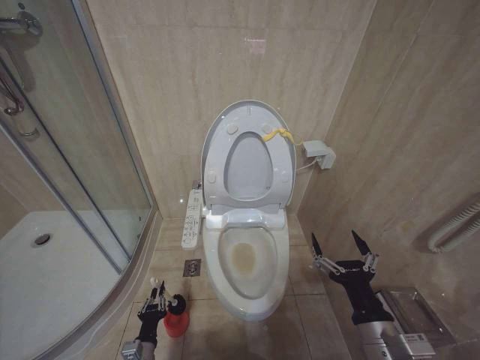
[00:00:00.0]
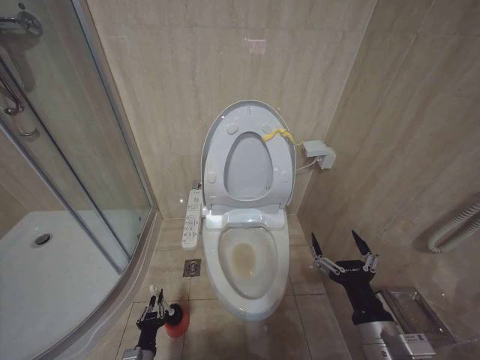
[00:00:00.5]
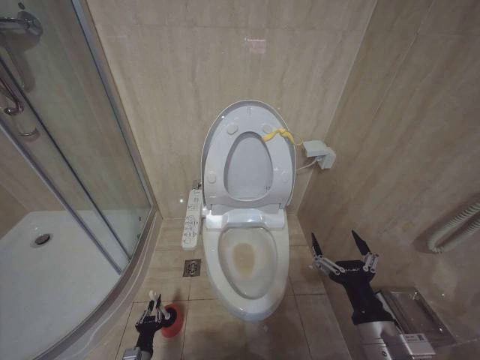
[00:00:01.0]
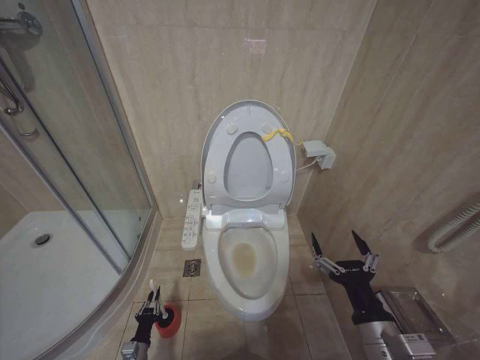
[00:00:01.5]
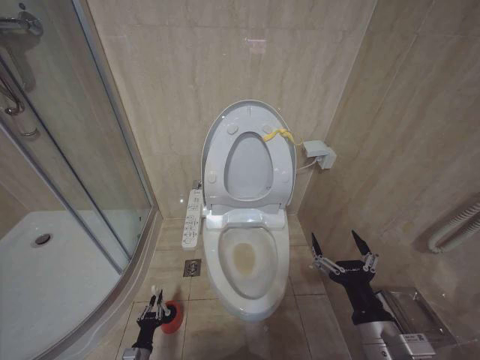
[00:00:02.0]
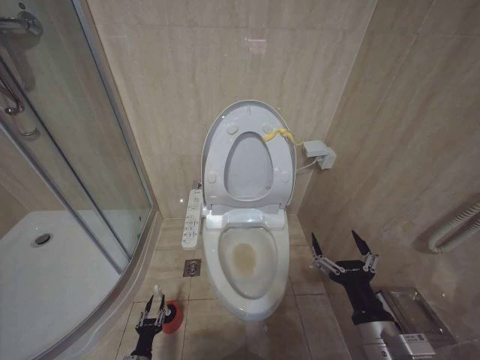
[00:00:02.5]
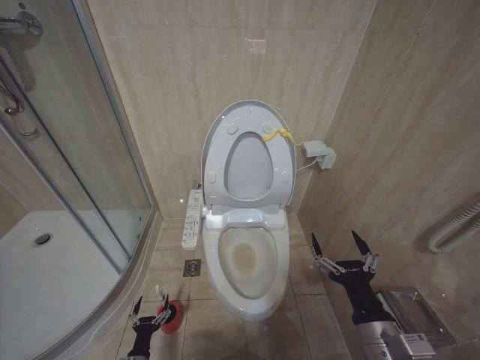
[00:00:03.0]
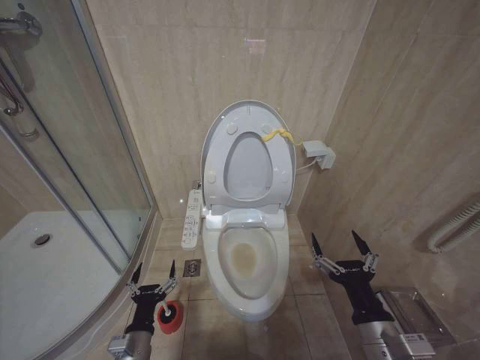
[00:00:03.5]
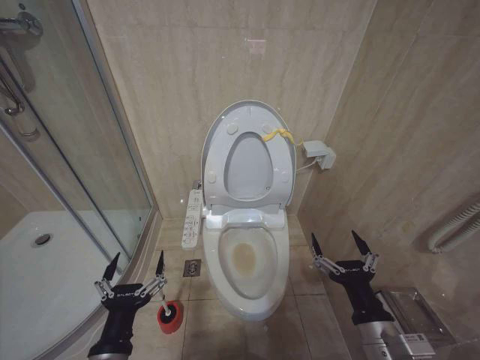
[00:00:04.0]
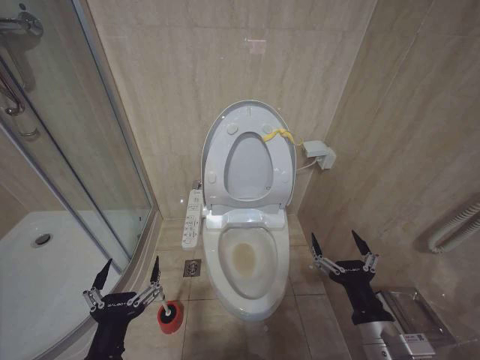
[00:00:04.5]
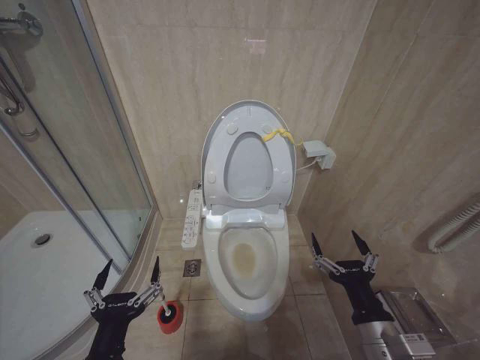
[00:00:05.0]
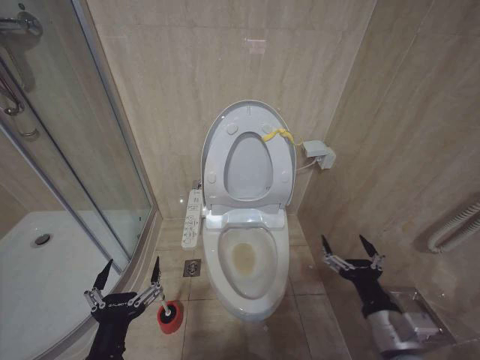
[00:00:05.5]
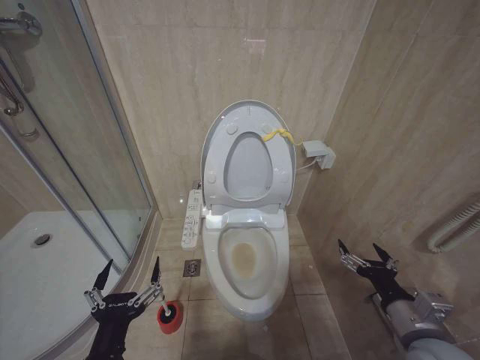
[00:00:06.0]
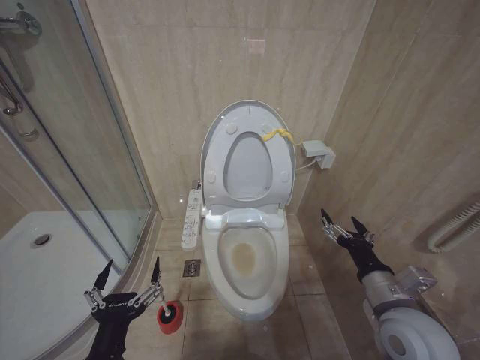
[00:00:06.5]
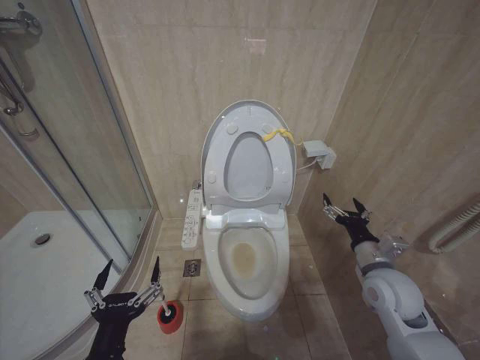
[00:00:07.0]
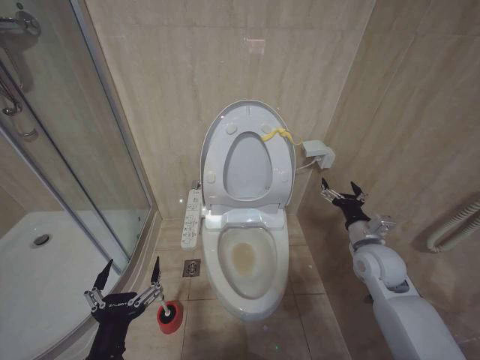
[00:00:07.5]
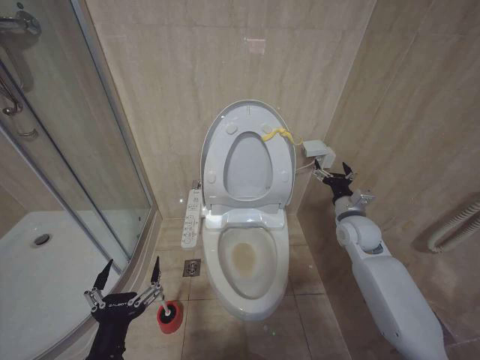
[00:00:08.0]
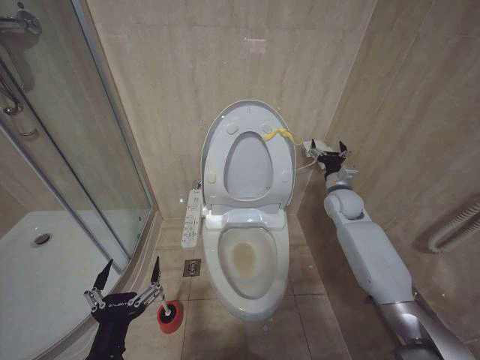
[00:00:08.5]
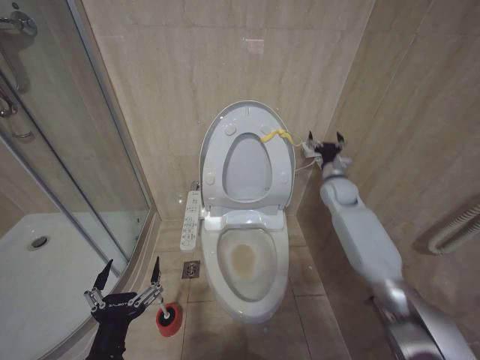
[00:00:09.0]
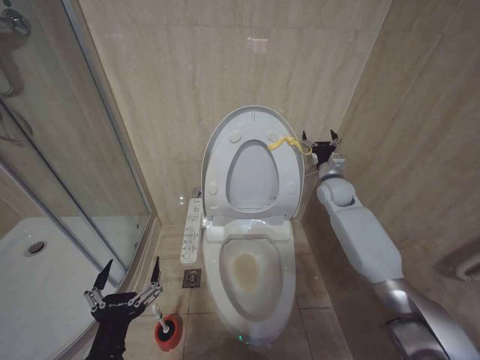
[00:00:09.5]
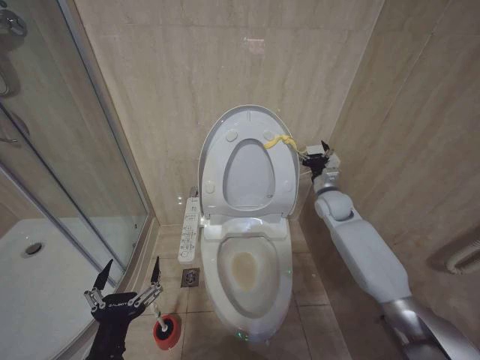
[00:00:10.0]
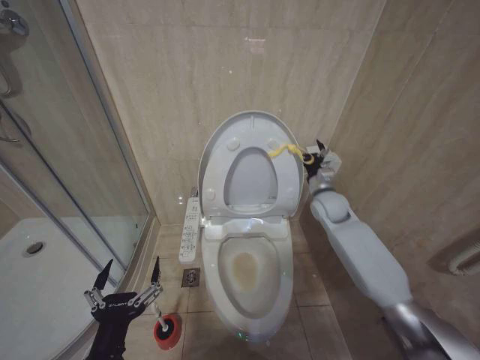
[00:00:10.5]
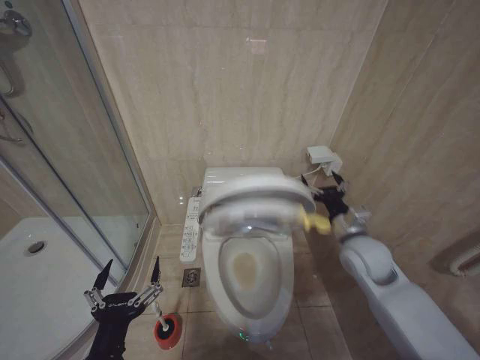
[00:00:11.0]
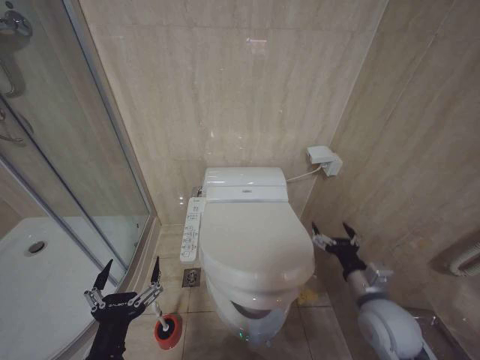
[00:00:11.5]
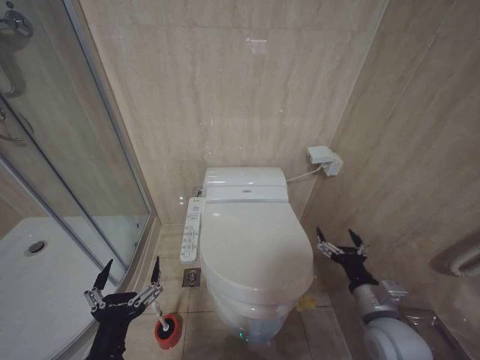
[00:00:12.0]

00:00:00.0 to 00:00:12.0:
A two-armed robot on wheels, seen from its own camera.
Task of the whole recording: Open the toilet lid, clean the toilet bowl with a toilet brush, close the toilet lid, and flush.
00:00:00.0 to 00:00:02.0: The left gripper is displaced downward by some 10 cm.
00:00:02.0 to 00:00:04.0: The left gripper moves upward, some 35 cm, and opens up.
00:00:04.0 to 00:00:06.0: The right gripper moves to the right, roughly 10 cm.
00:00:06.0 to 00:00:08.0: The right gripper is displaced forward by some 25 cm.
00:00:08.0 to 00:00:10.0: The right gripper goes roughly 10 cm forward.
00:00:10.0 to 00:00:12.0: The right gripper travels backward by some 30 cm.

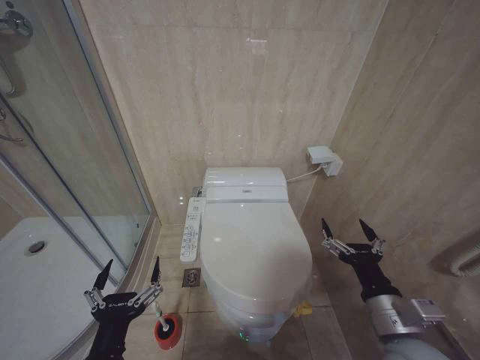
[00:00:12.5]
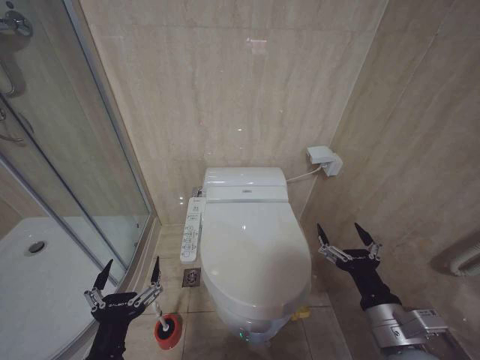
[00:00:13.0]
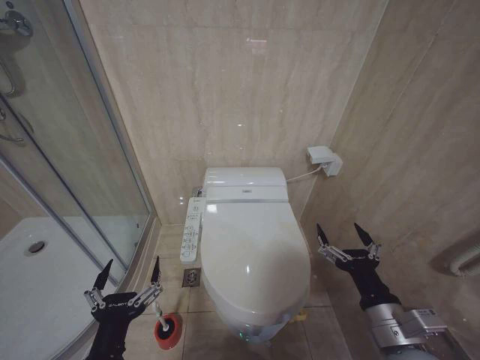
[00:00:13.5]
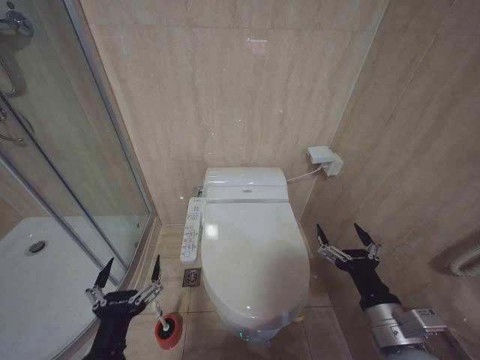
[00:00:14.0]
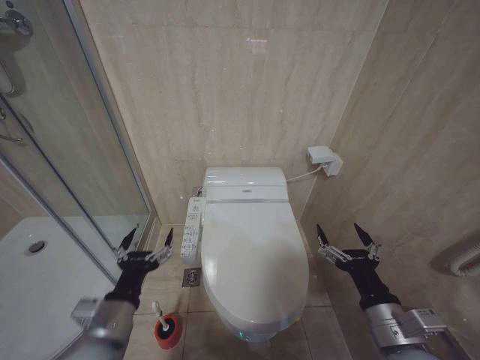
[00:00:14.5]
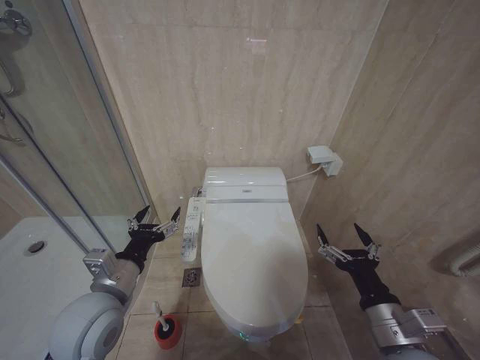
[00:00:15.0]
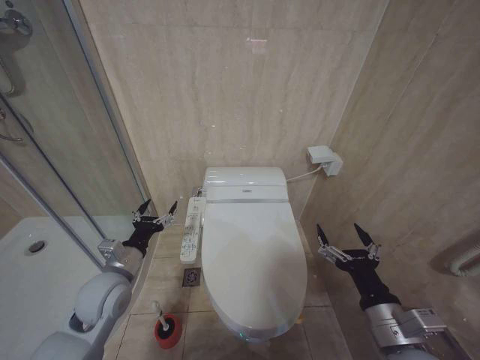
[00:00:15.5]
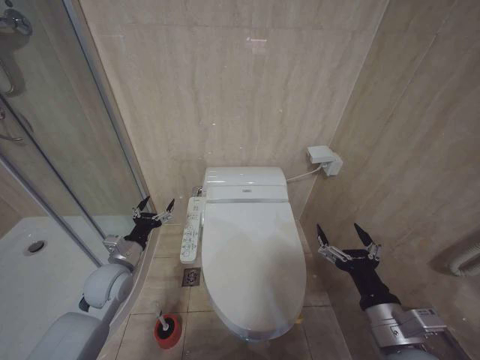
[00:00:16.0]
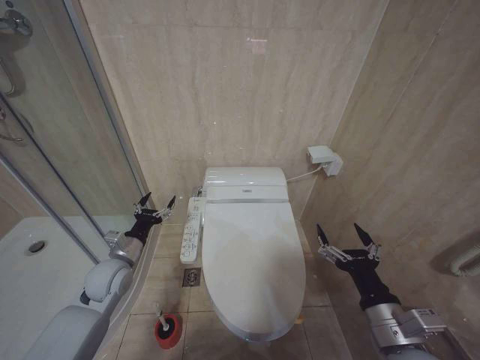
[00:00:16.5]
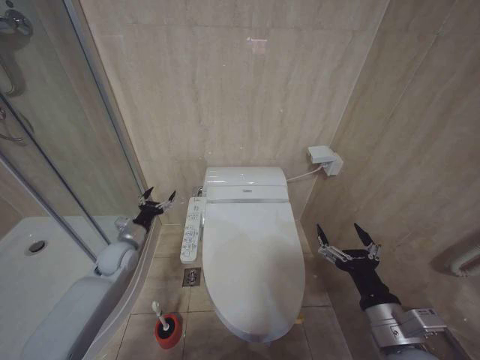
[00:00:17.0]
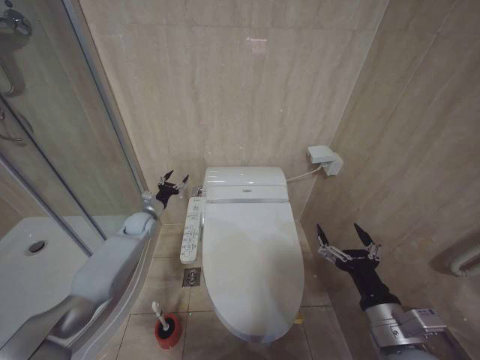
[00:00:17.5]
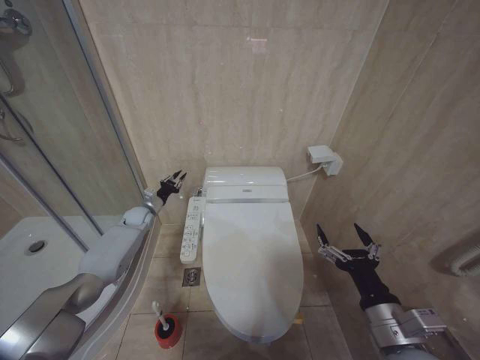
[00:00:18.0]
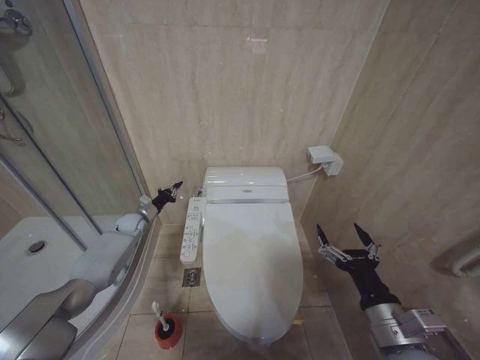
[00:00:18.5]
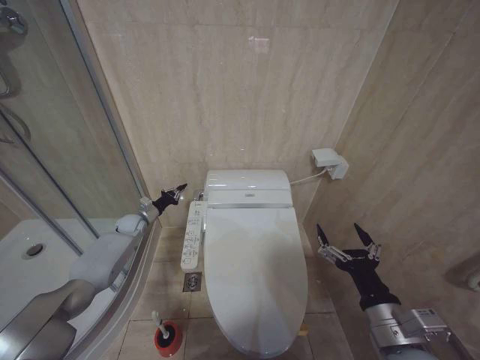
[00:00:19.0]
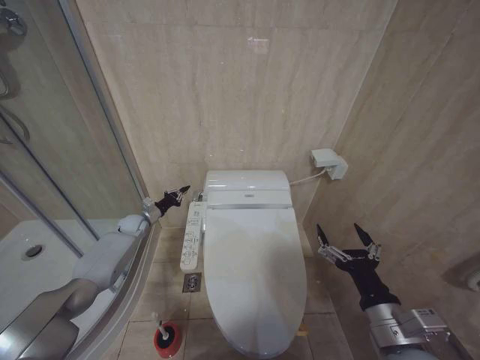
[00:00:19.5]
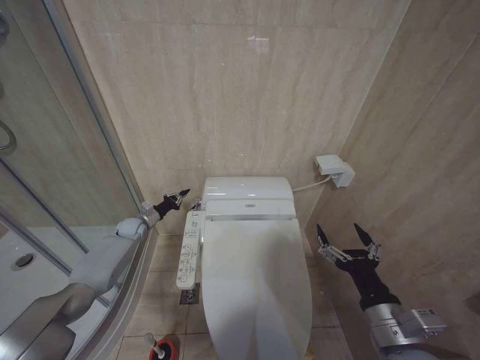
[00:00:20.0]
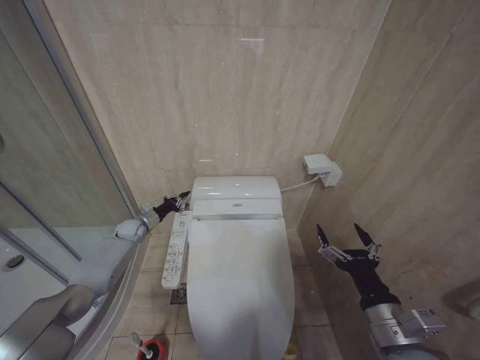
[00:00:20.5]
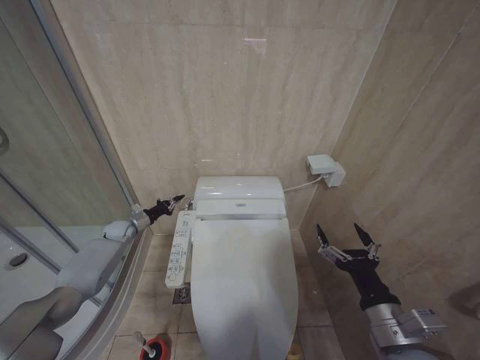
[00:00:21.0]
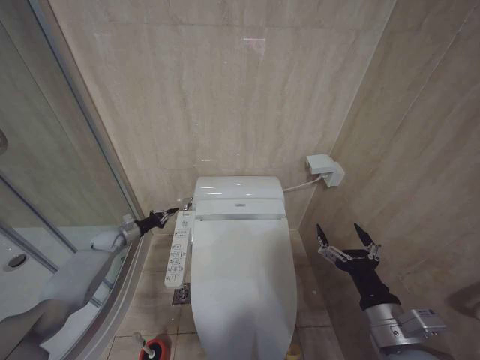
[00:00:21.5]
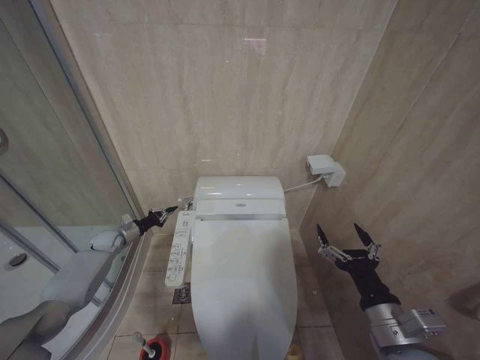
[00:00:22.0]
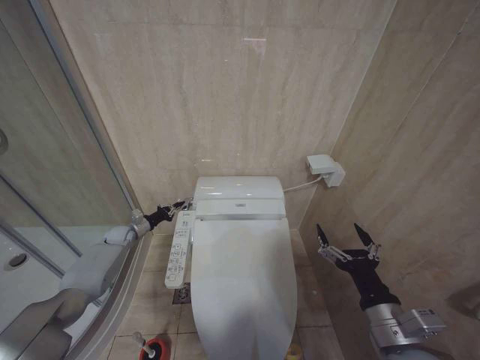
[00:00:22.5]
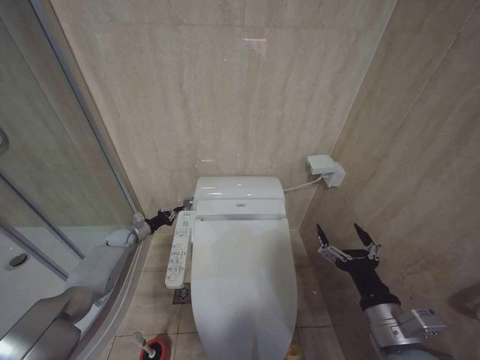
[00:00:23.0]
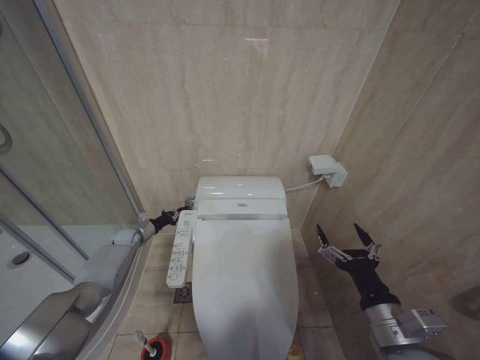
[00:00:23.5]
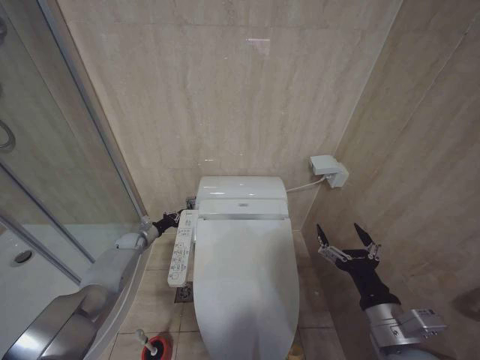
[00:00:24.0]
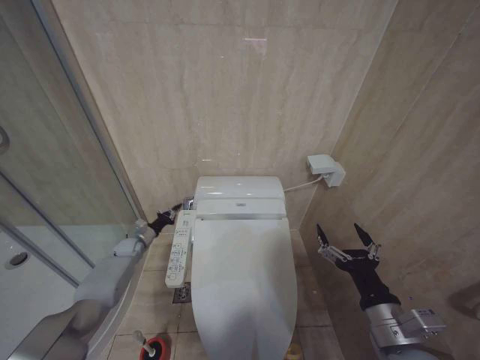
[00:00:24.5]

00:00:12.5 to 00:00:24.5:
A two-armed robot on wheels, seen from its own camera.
Task of the whole recording: Open the toilet lid, clean the toilet bowl with a toilet brush, close the toilet lid, and flush.
00:00:12.5 to 00:00:14.5: The left gripper heads forward, covering about 5 cm.
00:00:14.5 to 00:00:16.5: The left gripper is displaced forward by some 20 cm.
00:00:16.5 to 00:00:18.5: The left gripper travels forward by about 20 cm, and closes its fingers.
00:00:18.5 to 00:00:20.5: The grippers stay close to where they were, moving slightly.
00:00:22.5 to 00:00:24.5: The left gripper moves downward, about 5 cm.

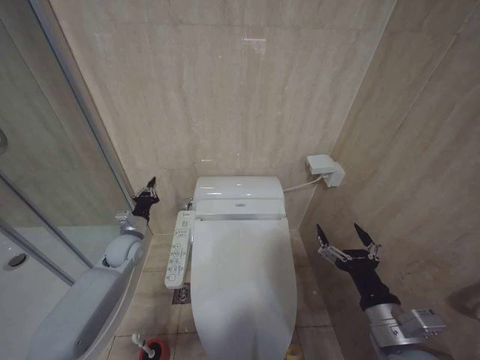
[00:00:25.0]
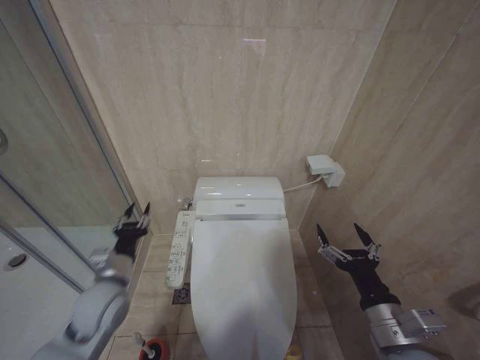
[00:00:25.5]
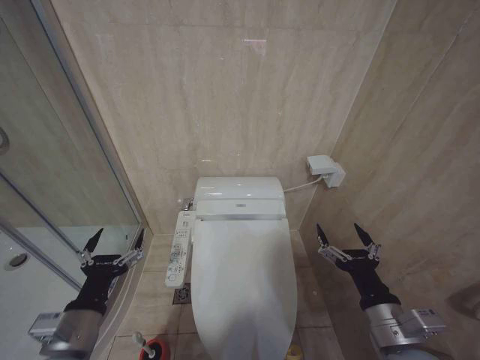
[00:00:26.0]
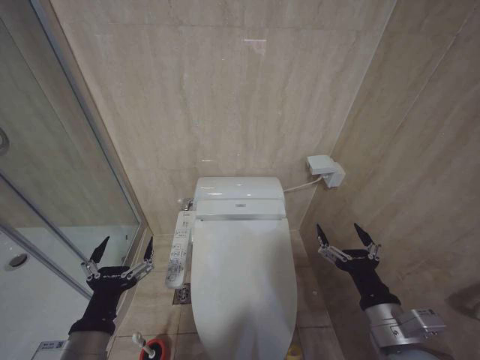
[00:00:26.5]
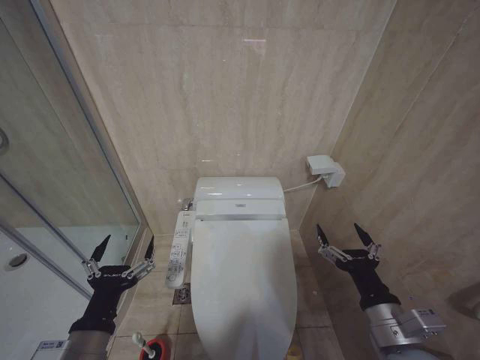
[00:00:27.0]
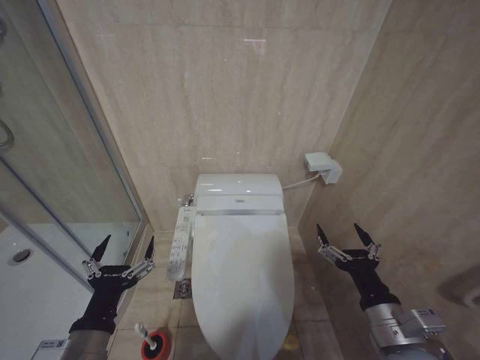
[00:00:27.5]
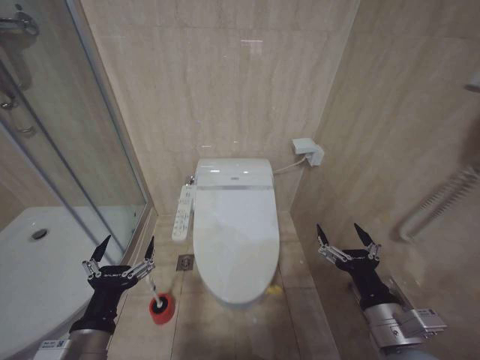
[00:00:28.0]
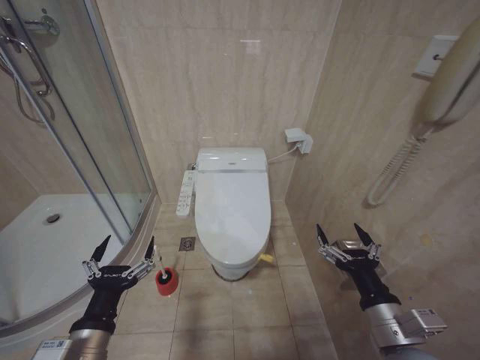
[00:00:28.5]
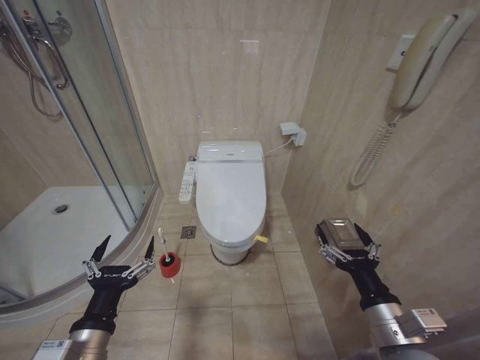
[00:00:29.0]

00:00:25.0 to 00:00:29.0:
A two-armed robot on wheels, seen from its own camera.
Task of the whole recording: Open the toilet lid, clean the toilet bowl with a toilet brush, close the toilet lid, and flush.
00:00:25.0 to 00:00:27.0: The left gripper shifts roughly 35 cm backward, and opens up.
